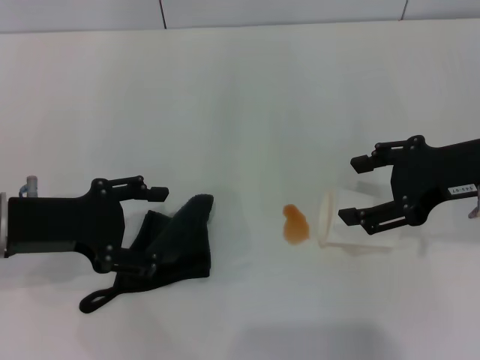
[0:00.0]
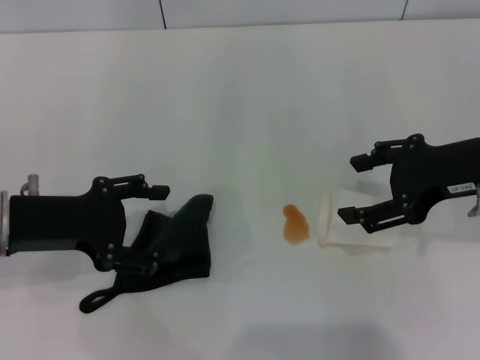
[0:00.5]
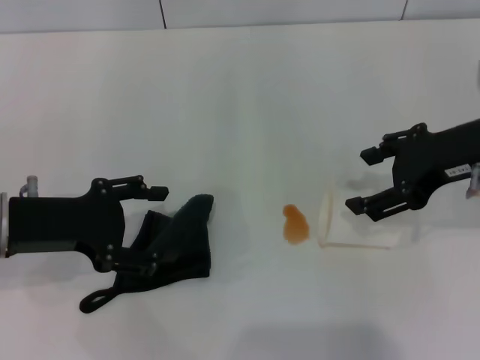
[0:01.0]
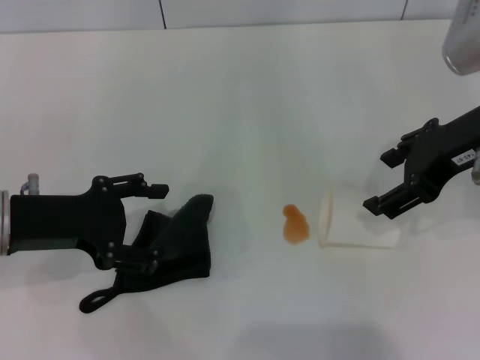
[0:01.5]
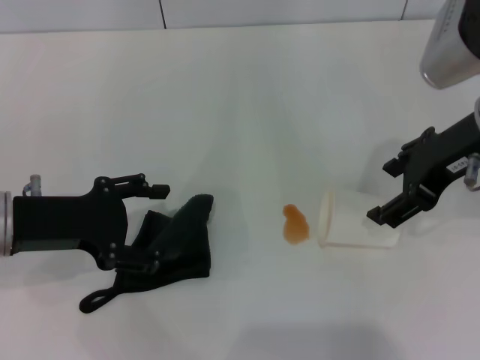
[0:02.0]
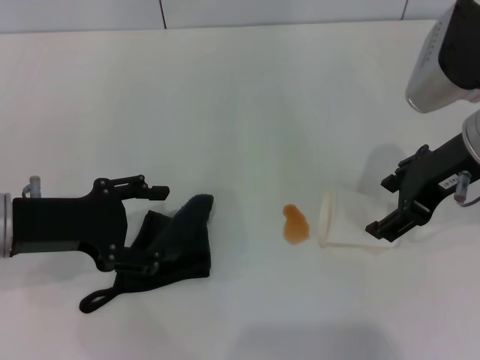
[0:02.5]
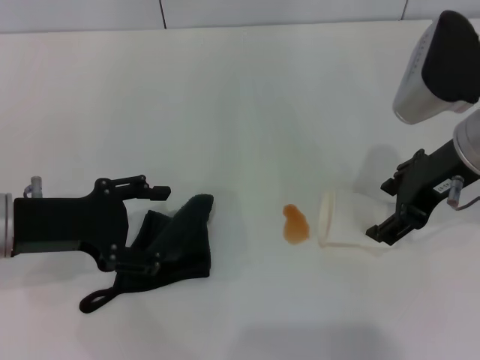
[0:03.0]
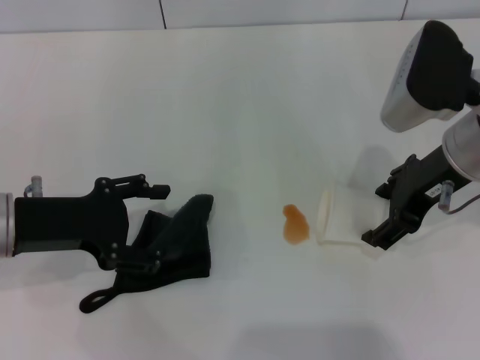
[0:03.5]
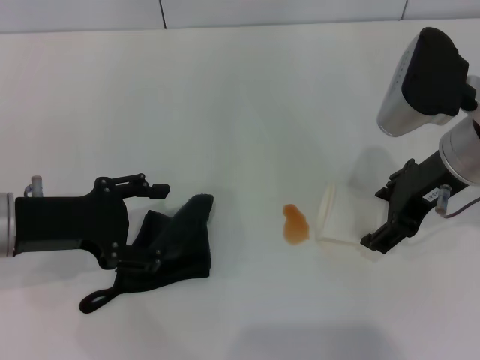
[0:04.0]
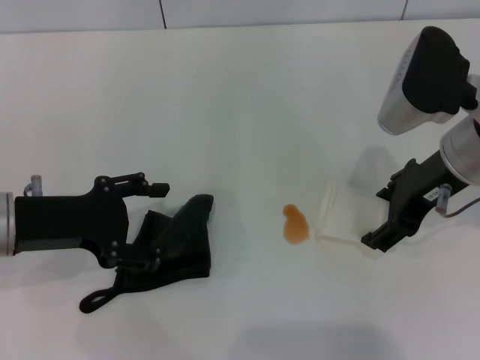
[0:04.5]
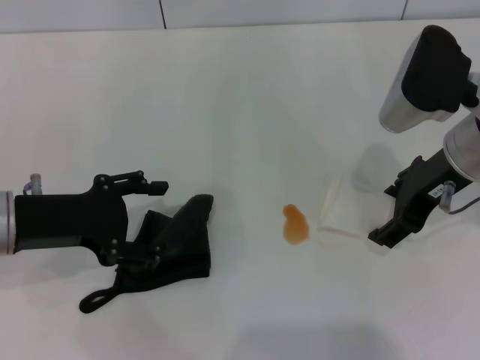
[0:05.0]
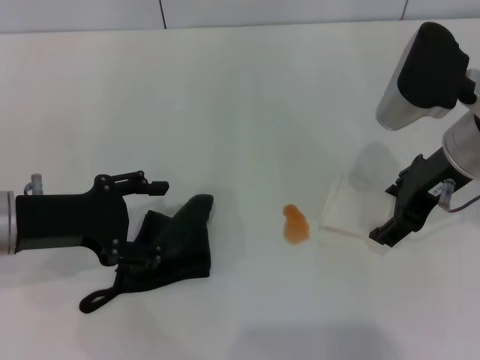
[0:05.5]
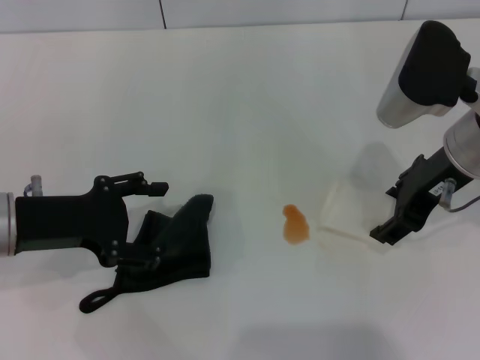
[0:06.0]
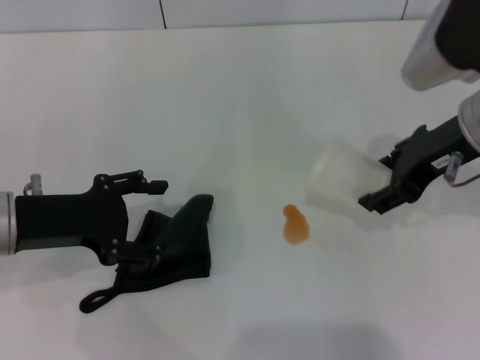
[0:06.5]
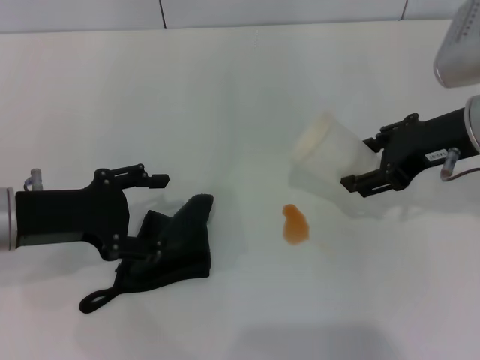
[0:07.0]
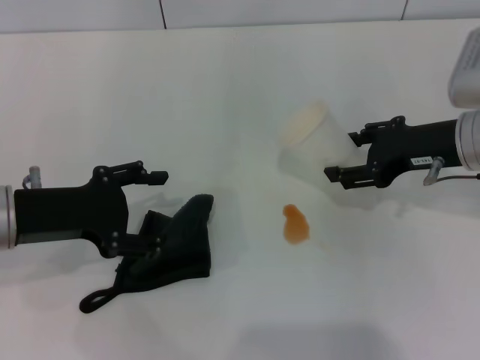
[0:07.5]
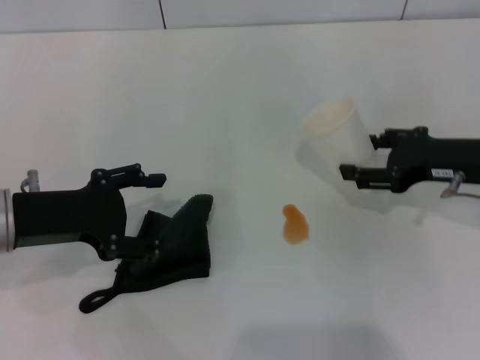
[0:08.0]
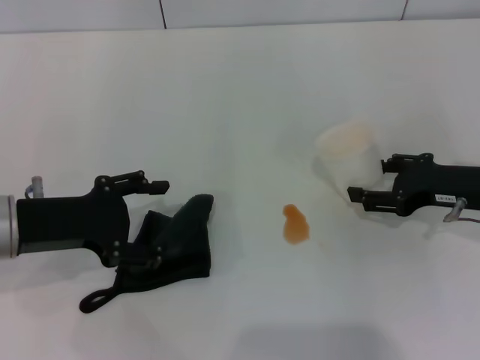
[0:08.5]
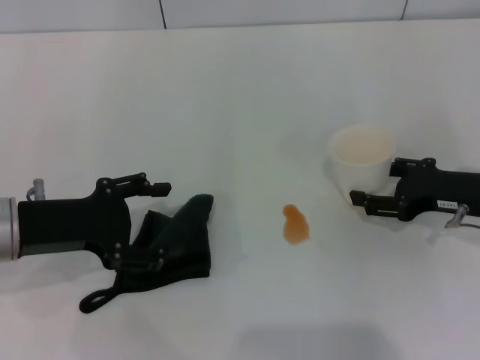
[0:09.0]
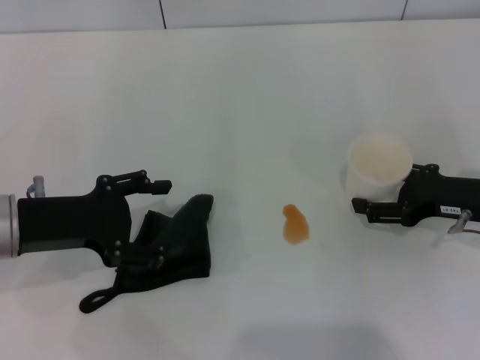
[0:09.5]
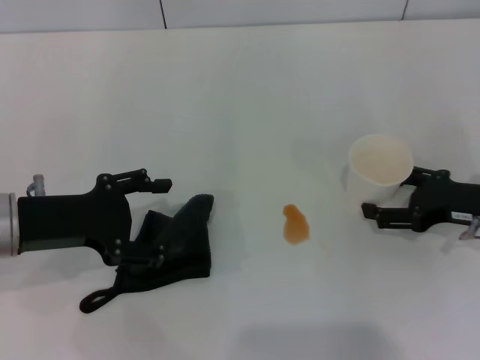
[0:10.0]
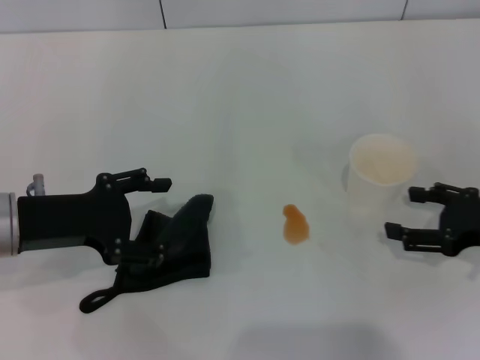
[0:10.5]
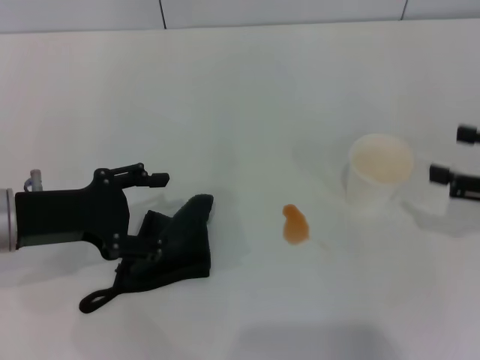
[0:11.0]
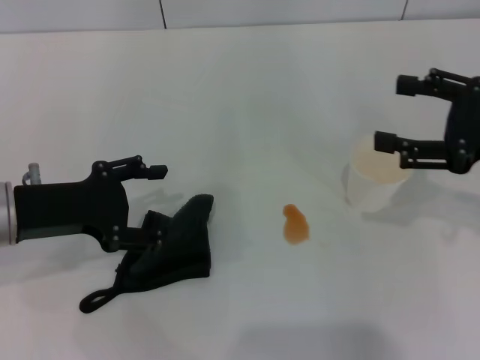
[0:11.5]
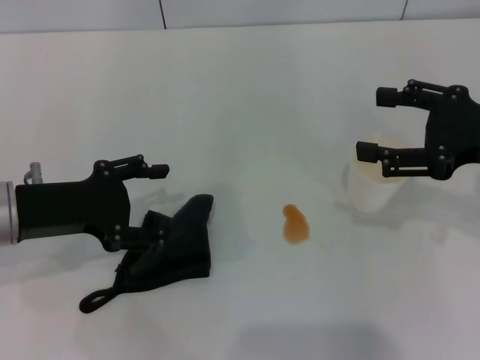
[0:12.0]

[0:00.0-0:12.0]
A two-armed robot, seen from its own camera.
Step, 0:00.0 to 0:05.5: Grasp the paper cup with the right gripper.
Step, 0:06.0 to 0:10.0: Stand the paper cup upright with the right gripper.
0:00.0 to 0:02.0: The right gripper ends up roughly 5 cm from where it was.
0:02.0 to 0:04.0: There are only small adjustments of the grippers.
0:04.0 to 0:06.0: The right gripper closes.
0:06.0 to 0:08.0: The right gripper is displaced to the right and downward by roughly 10 cm.
0:08.0 to 0:10.0: The right gripper shifts by approximately 5 cm, and opens.
0:10.0 to 0:12.0: The right gripper is displaced upward by roughly 10 cm.

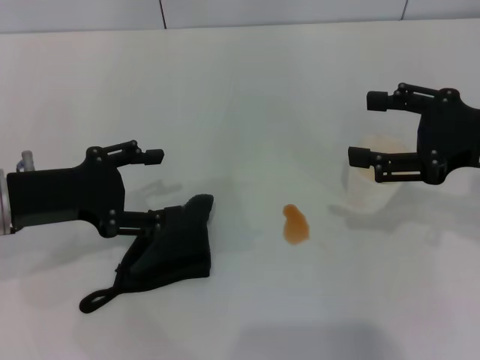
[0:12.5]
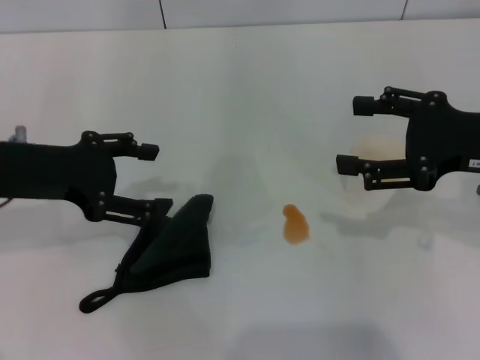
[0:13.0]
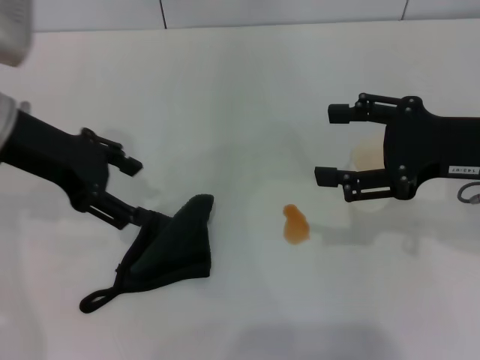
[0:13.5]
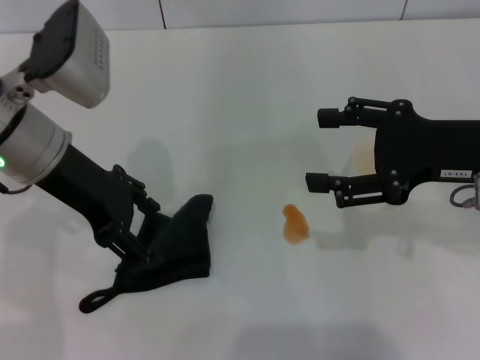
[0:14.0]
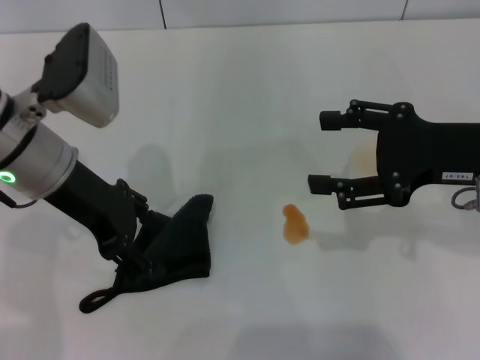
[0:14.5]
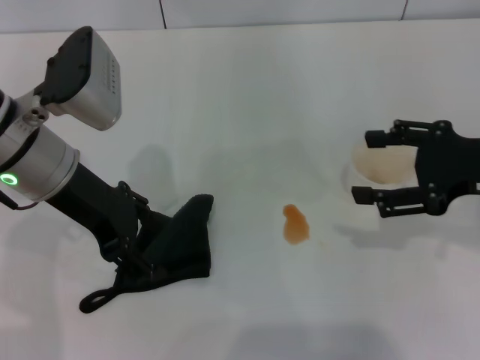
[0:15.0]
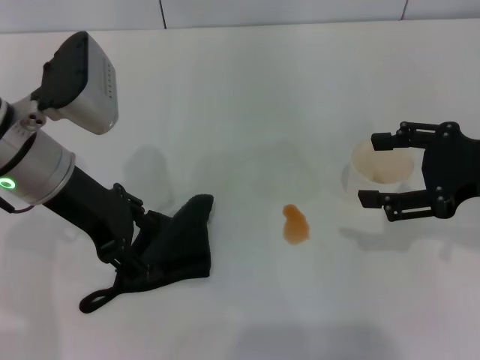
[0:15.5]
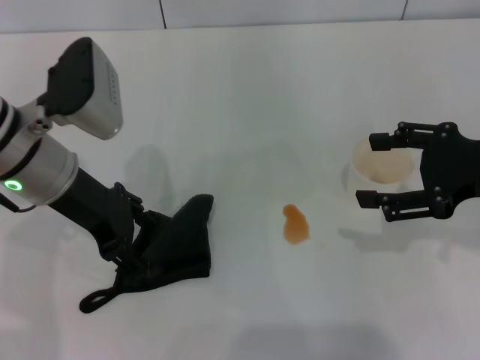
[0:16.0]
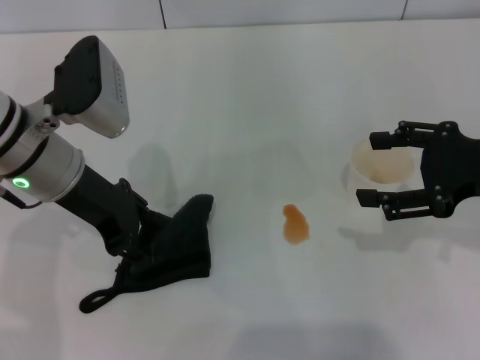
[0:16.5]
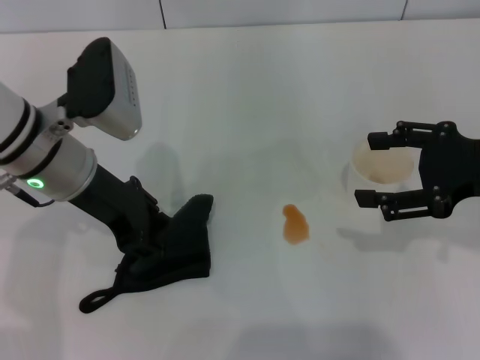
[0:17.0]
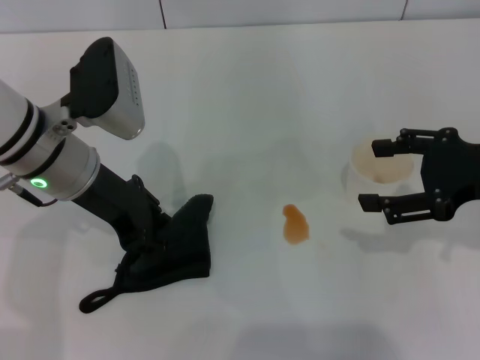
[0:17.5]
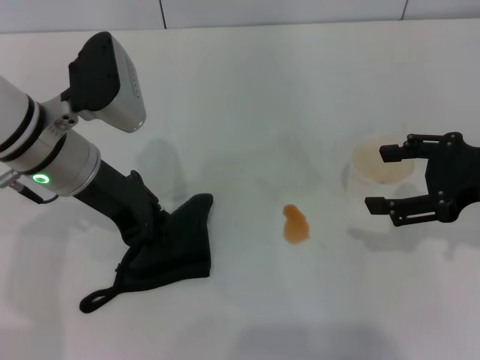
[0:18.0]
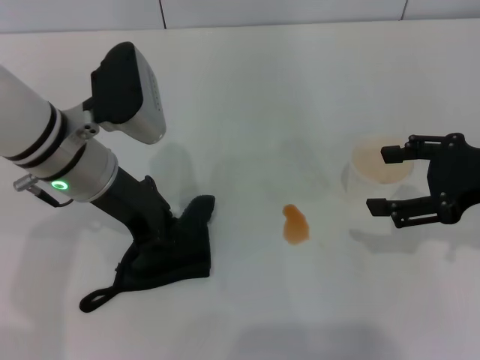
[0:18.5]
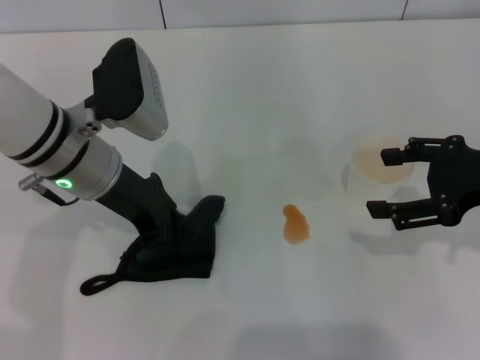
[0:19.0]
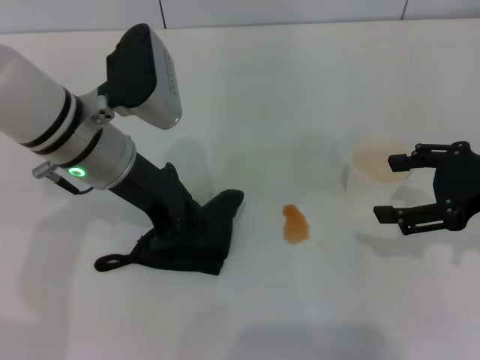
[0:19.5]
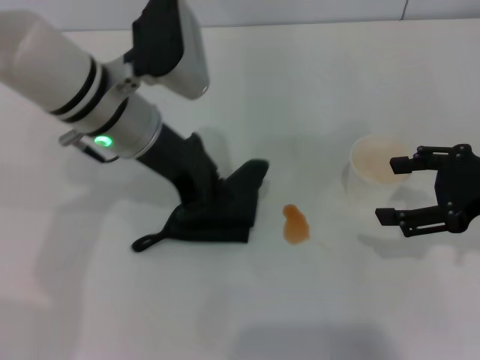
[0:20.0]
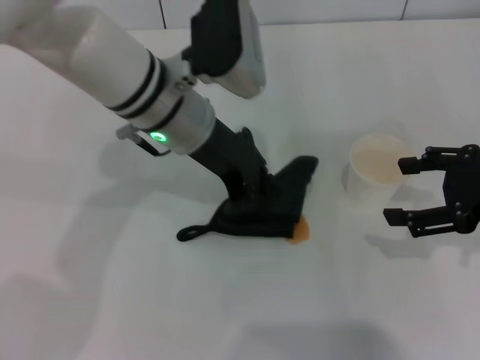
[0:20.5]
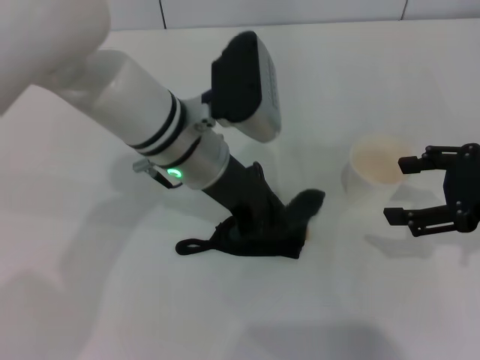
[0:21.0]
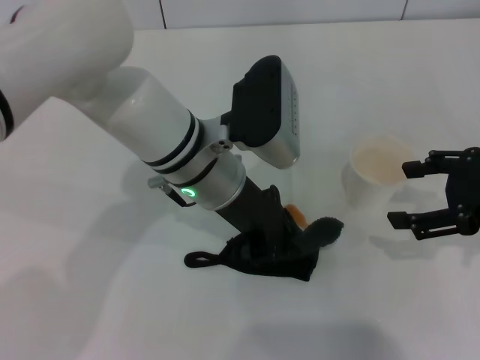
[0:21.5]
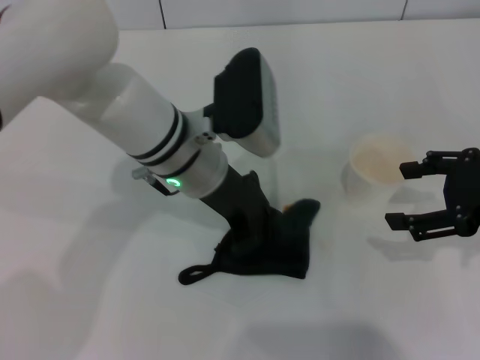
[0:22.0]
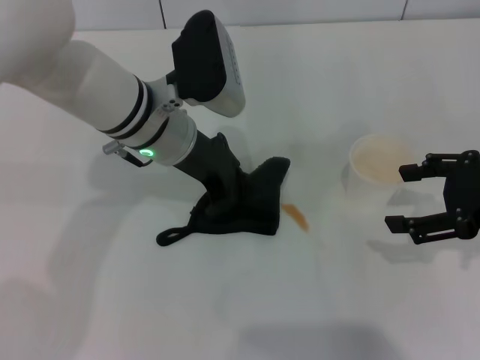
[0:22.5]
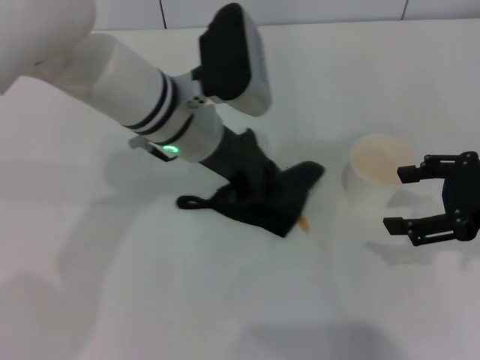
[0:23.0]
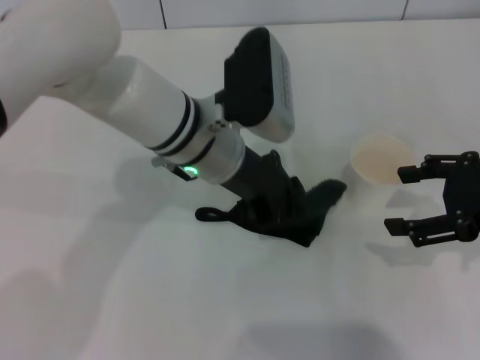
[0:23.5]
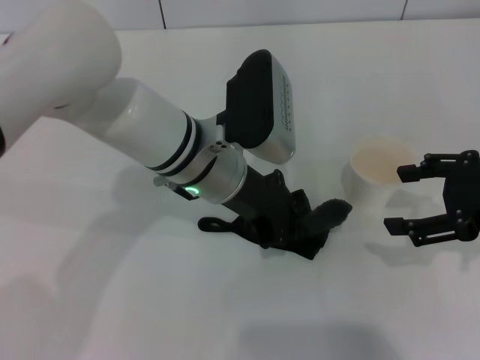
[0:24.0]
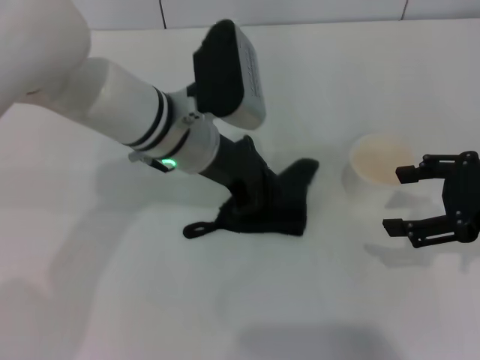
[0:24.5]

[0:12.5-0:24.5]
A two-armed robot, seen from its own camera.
Step, 0:12.5 to 0:17.5: Grasp the rag with the left gripper.
0:12.5 to 0:14.5: The left gripper moves to the right, roughly 5 cm.
0:14.5 to 0:16.5: The grippers make only small movements.
0:16.5 to 0:18.5: The left gripper closes up.
0:18.5 to 0:20.5: The left gripper travels to the right by approximately 10 cm.
0:20.5 to 0:24.5: The grippers stay close to where they were, moving slightly.

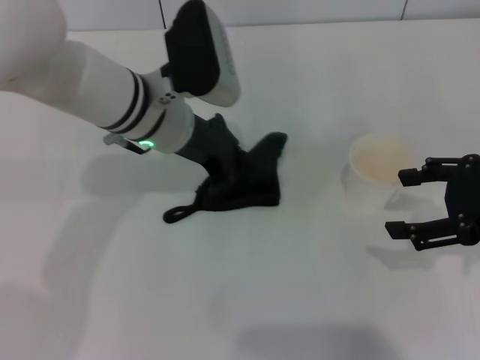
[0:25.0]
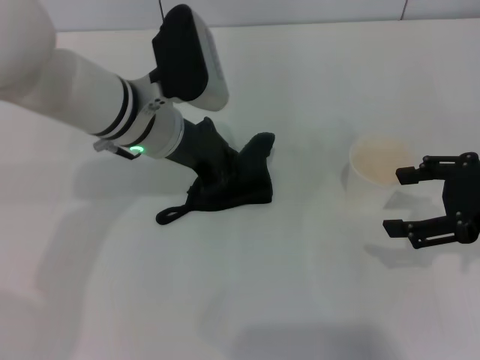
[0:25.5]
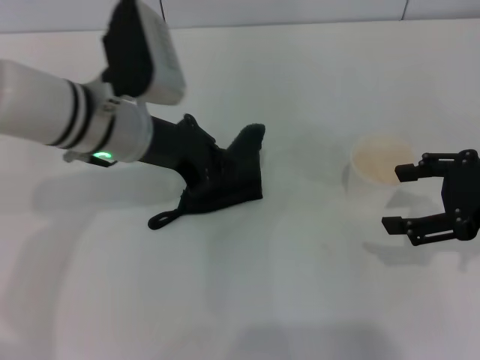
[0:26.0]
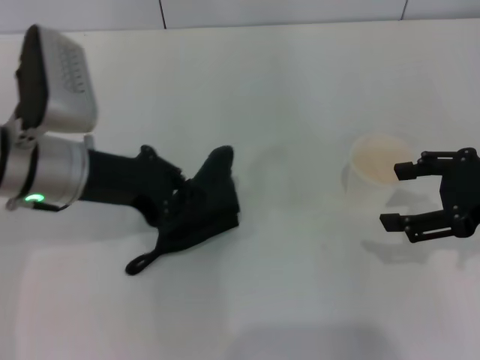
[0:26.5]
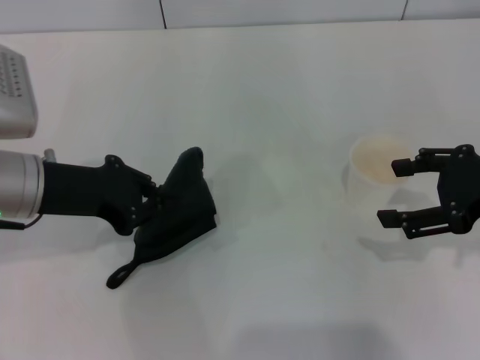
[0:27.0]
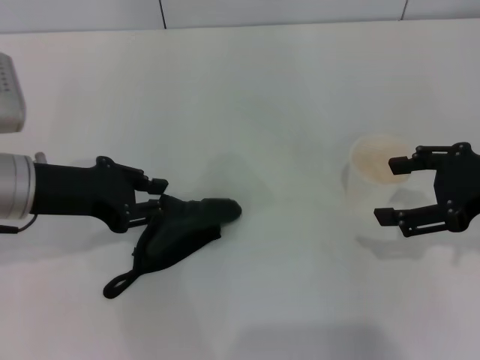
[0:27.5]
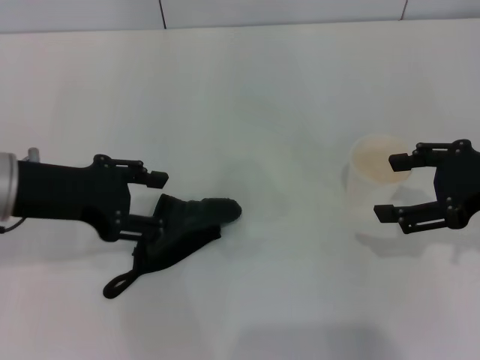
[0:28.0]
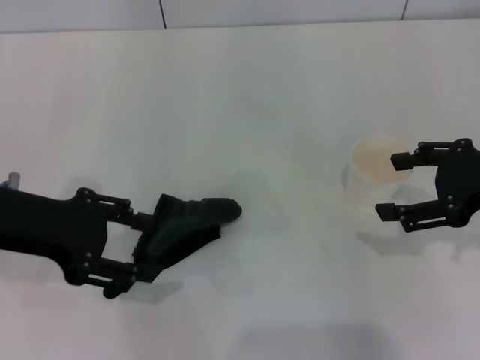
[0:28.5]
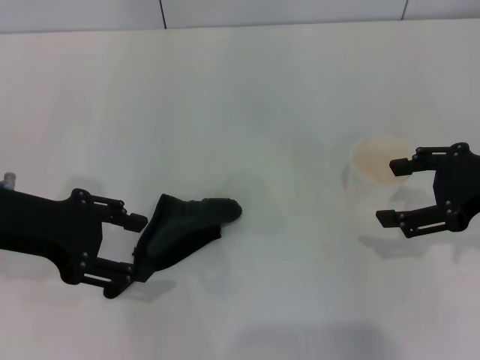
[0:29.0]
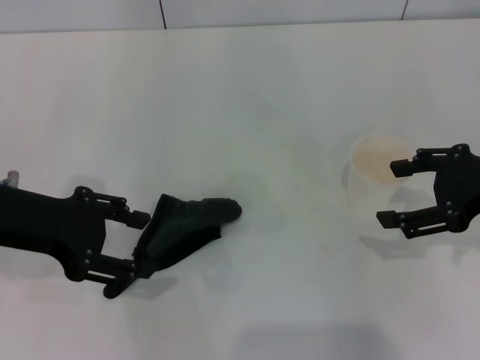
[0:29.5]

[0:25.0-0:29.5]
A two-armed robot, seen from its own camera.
Step, 0:27.0 to 0:27.5: Place the rag on the table with the left gripper.
0:25.0 to 0:27.0: The left gripper moves to the left and backward, about 15 cm.
0:27.0 to 0:29.5: The left gripper opens up.
